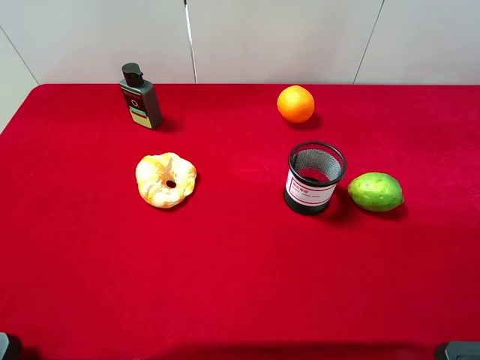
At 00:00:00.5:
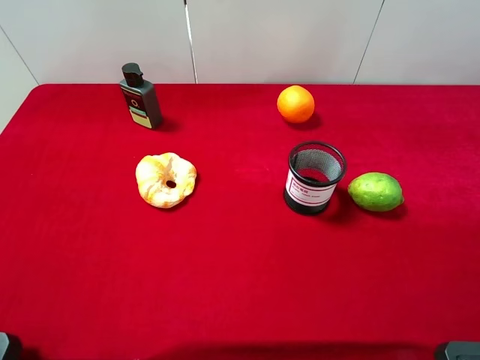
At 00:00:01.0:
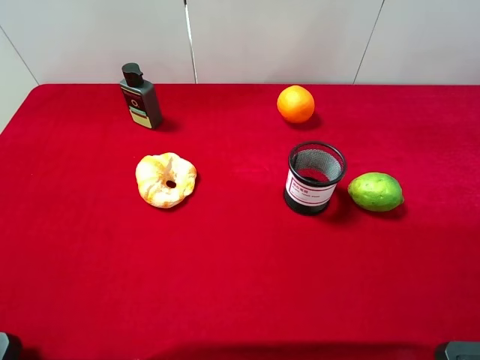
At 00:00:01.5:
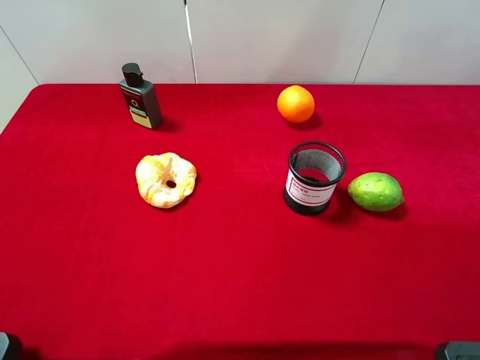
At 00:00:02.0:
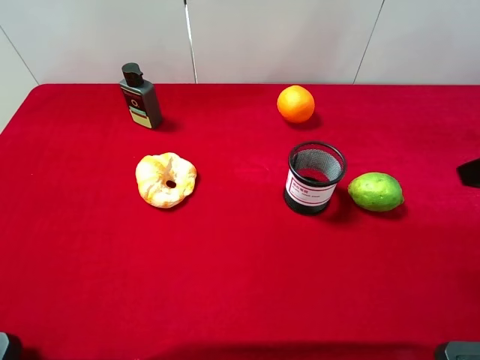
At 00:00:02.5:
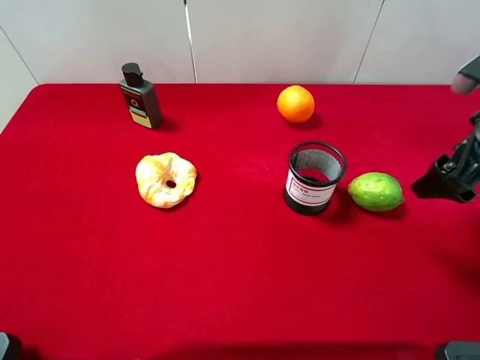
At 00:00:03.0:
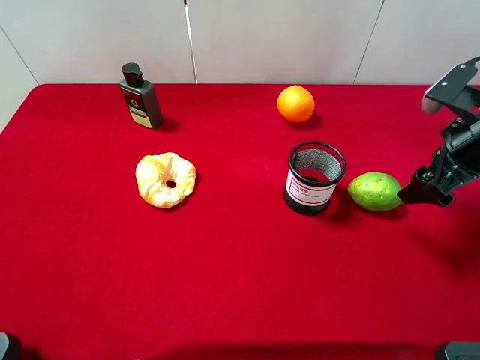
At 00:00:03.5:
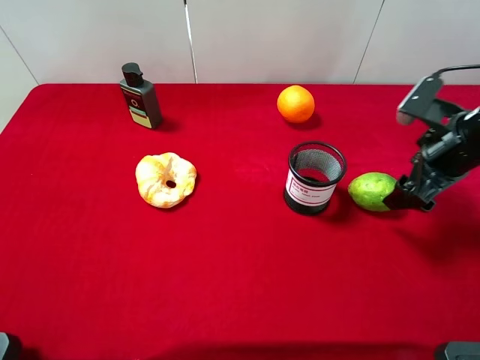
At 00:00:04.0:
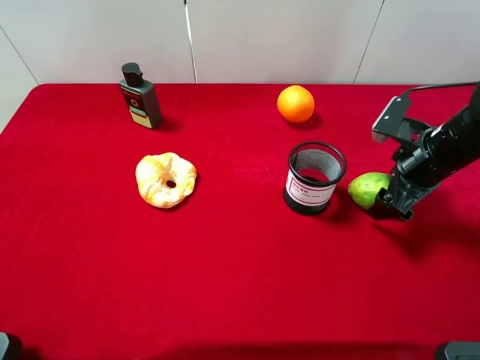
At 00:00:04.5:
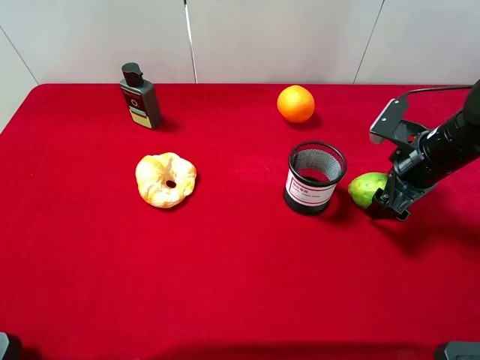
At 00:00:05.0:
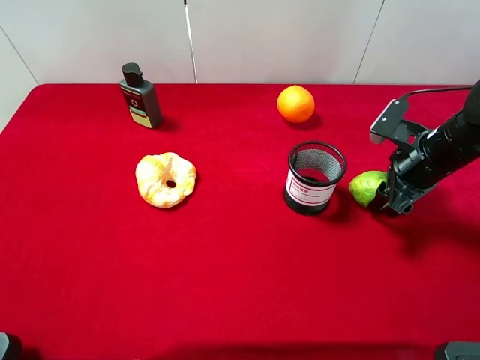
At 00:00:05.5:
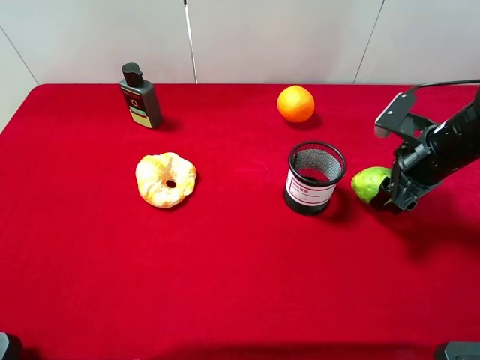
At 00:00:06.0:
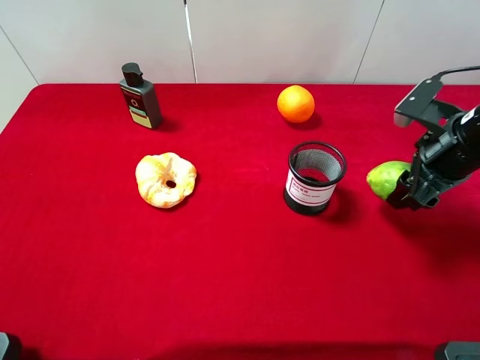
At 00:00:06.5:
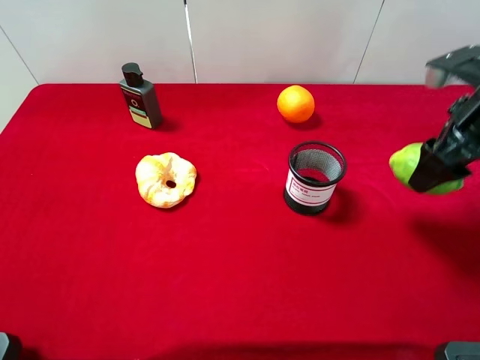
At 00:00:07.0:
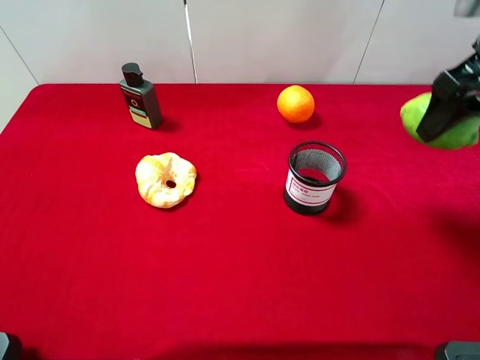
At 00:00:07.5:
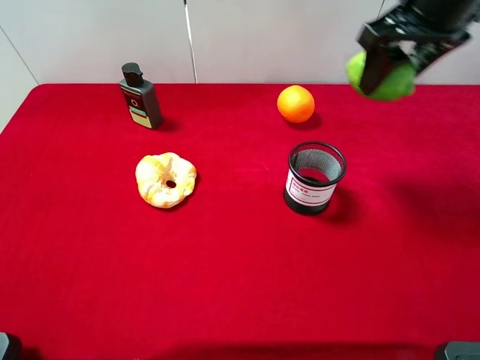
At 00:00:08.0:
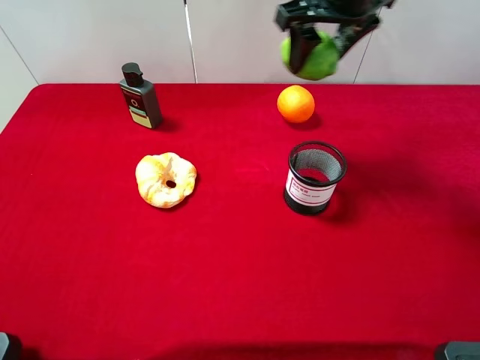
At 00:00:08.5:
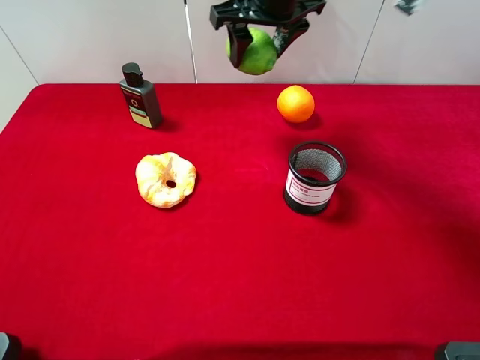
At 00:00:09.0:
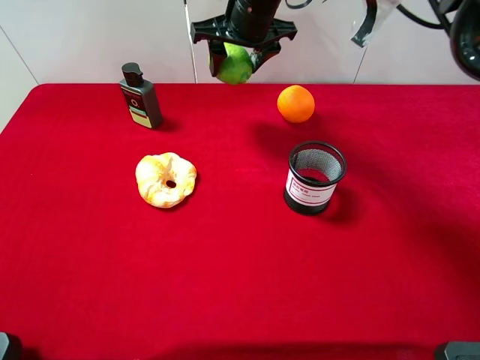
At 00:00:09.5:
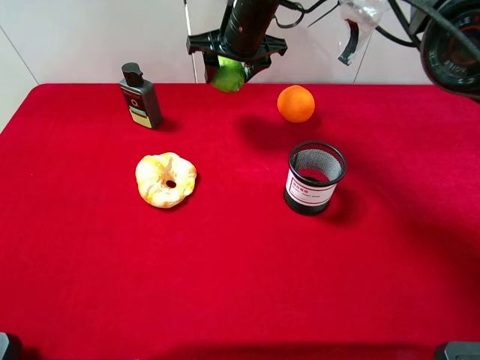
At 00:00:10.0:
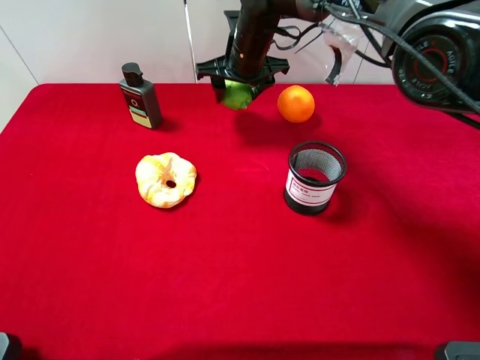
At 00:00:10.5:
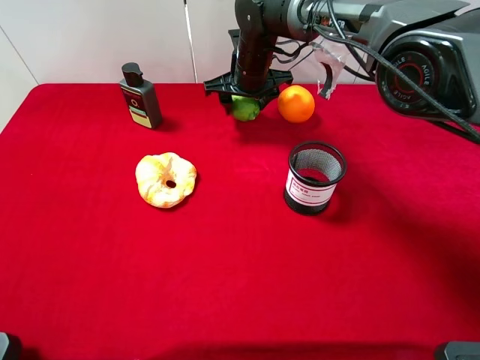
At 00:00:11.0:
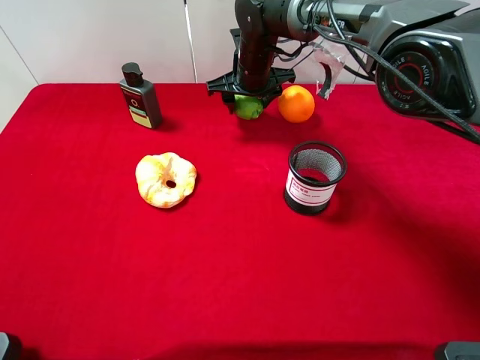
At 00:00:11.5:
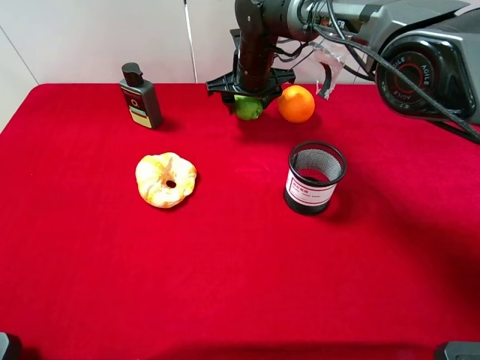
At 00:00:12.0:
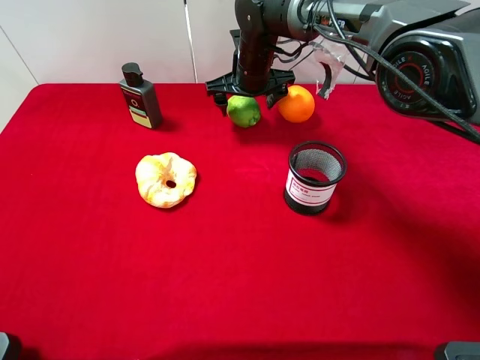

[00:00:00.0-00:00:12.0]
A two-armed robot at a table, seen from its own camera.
Task of the whole recording: the gripper move the object.
Step, 00:00:00.0 to 00:00:05.0: Grasp the green lemon with the right gripper.
00:00:02.0 to 00:00:04.0: The right gripper moves downward and forward, roughly 20 cm.
00:00:04.0 to 00:00:06.0: The right gripper closes its fingers.
00:00:06.0 to 00:00:08.0: The right gripper shifts roughly 25 cm upward, to the left and forward.
00:00:08.0 to 00:00:10.0: The right gripper goes some 20 cm downward, to the left and forward.
00:00:10.0 to 00:00:12.0: The right gripper opens up.

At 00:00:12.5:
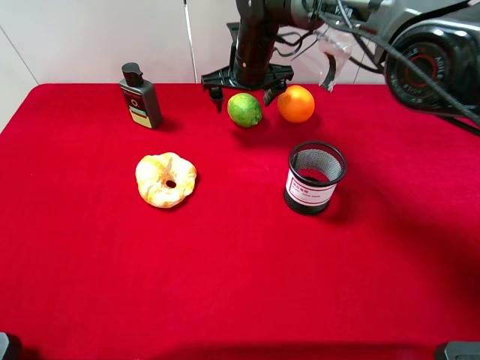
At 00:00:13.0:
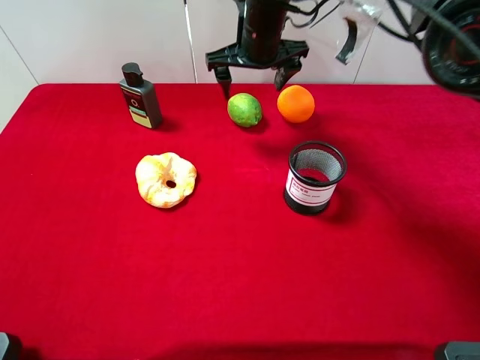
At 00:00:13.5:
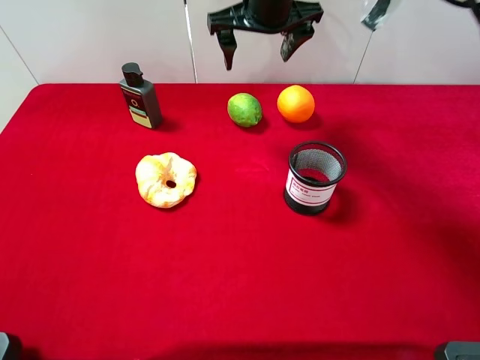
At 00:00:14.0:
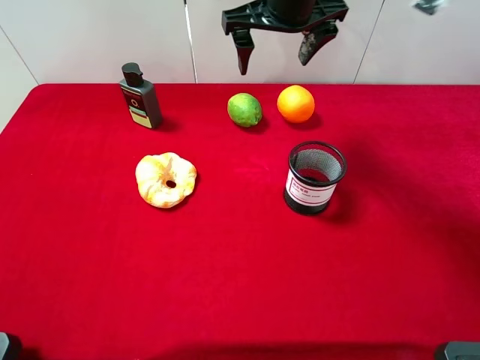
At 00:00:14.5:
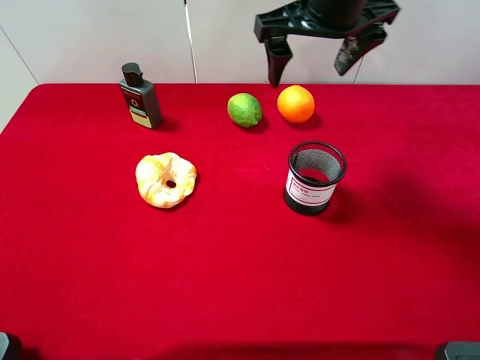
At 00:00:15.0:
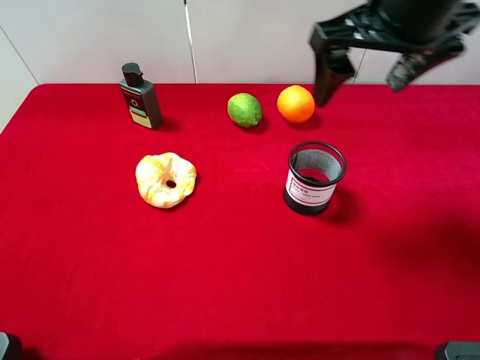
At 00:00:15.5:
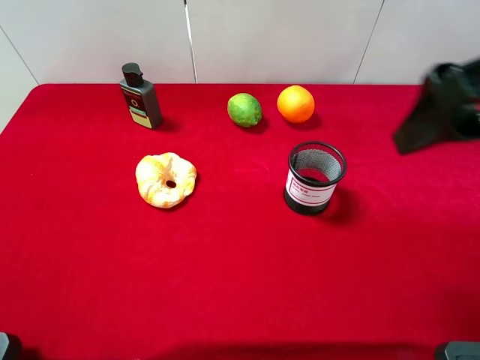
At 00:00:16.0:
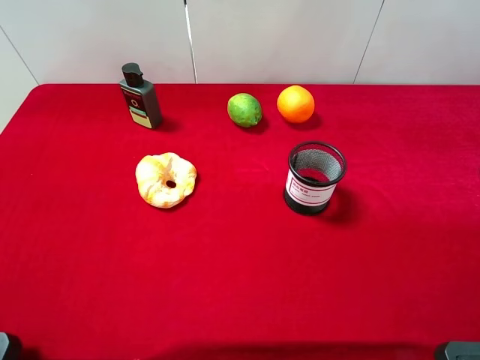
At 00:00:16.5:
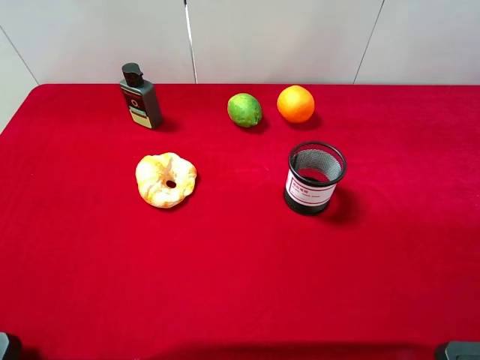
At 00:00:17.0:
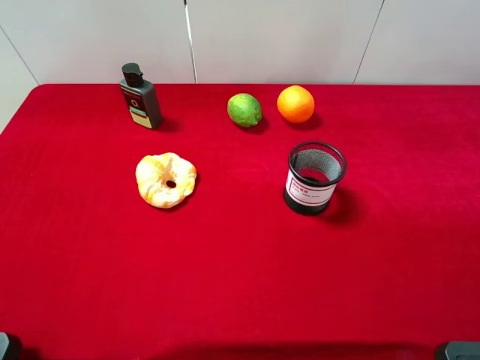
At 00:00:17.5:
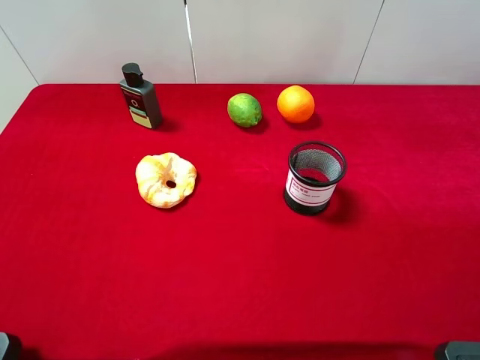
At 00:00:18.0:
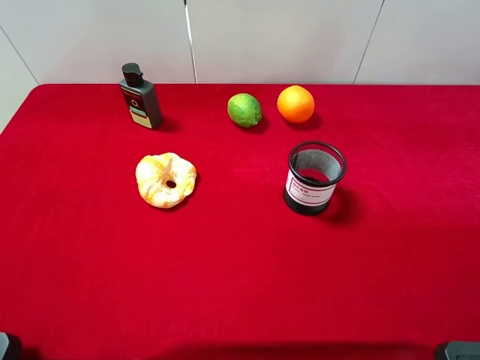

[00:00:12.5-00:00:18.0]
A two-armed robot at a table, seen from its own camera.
Task of the whole recording: the gripper move the object.
00:00:12.5 to 00:00:14.5: The right gripper goes about 20 cm upward, backward and to the right.
00:00:14.5 to 00:00:16.0: The right gripper is displaced backward and to the right by some 30 cm.
